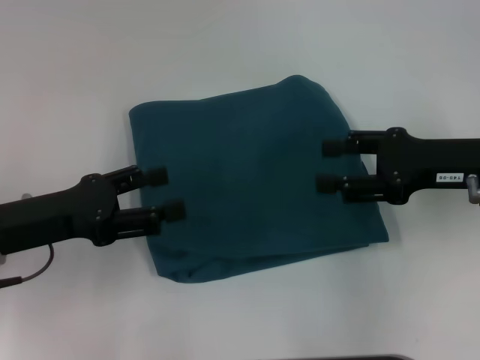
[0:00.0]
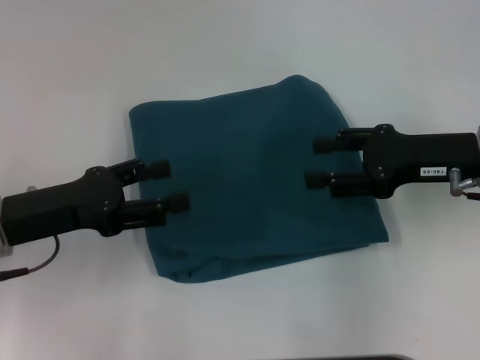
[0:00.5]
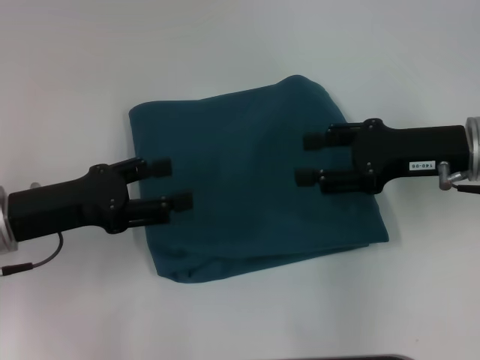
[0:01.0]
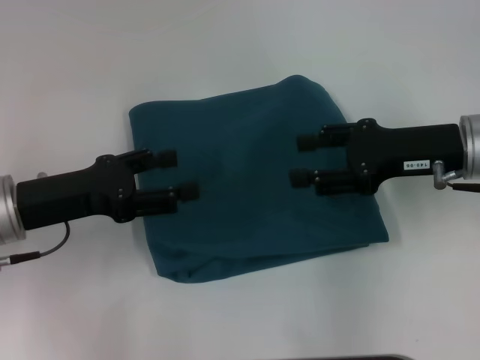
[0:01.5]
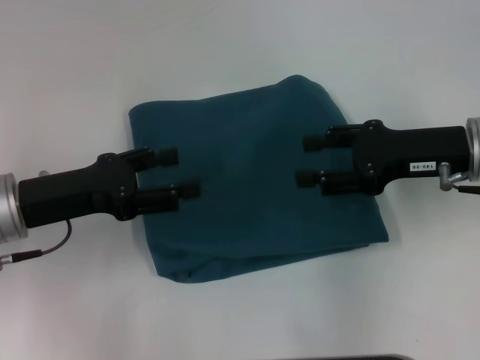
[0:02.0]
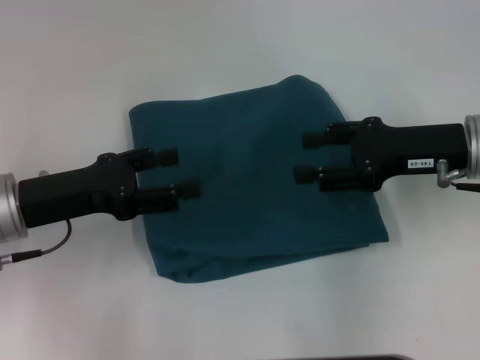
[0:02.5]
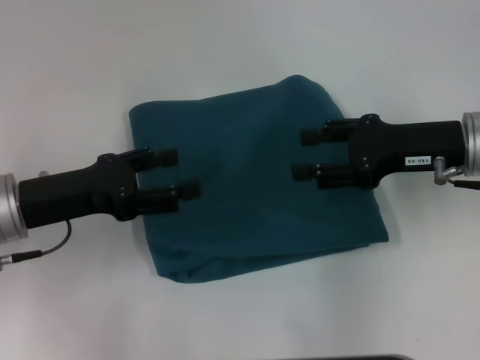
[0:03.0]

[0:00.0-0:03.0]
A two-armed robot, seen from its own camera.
0:00.0 to 0:01.5: There are only small adjustments of the grippers.
0:01.5 to 0:03.0: Both grippers stay put.

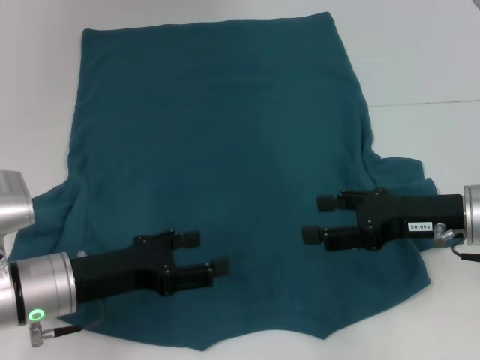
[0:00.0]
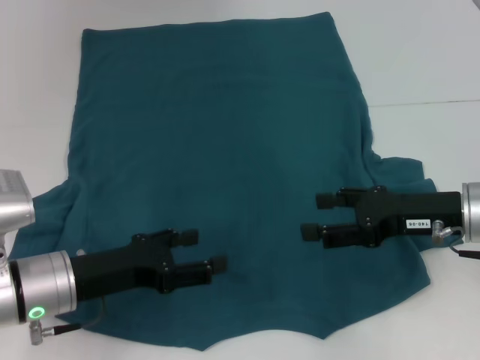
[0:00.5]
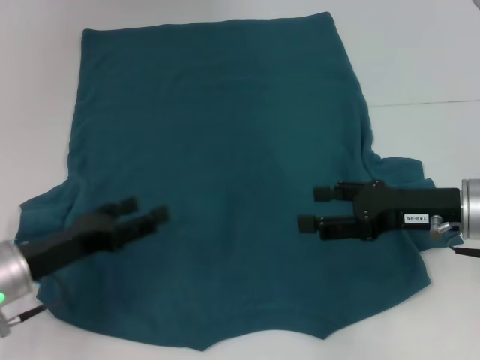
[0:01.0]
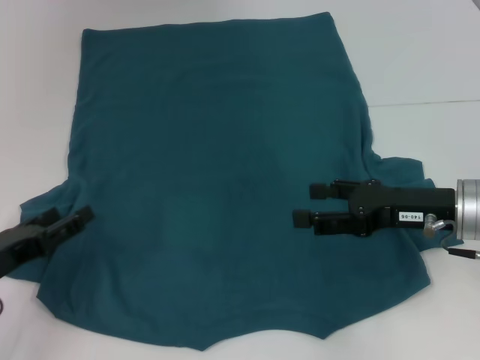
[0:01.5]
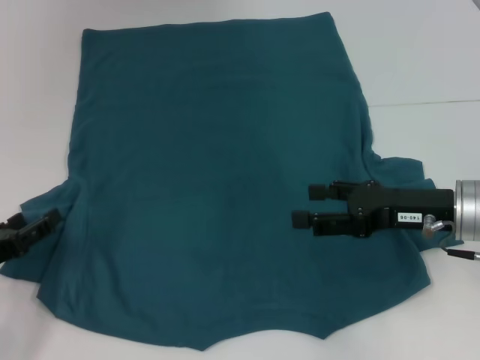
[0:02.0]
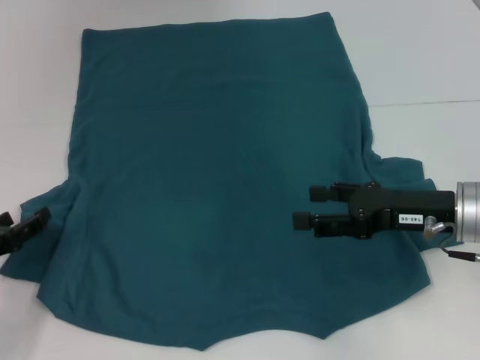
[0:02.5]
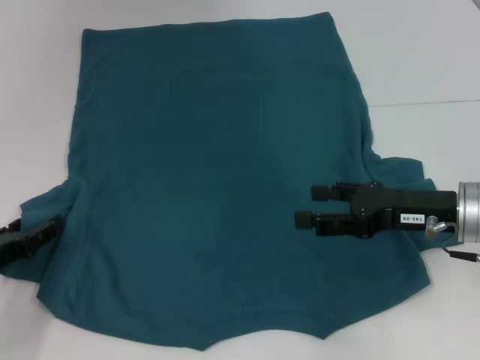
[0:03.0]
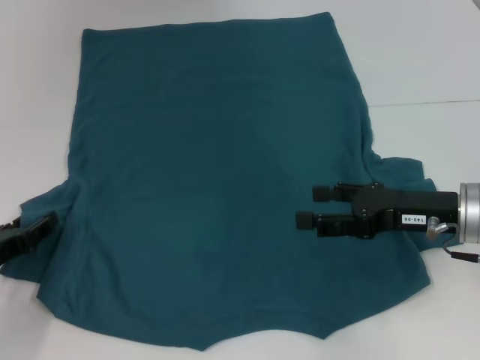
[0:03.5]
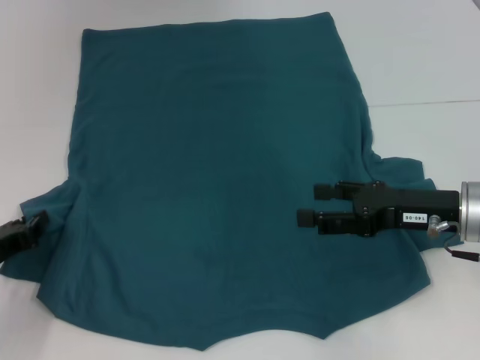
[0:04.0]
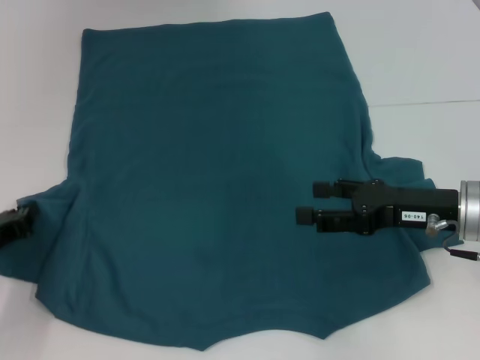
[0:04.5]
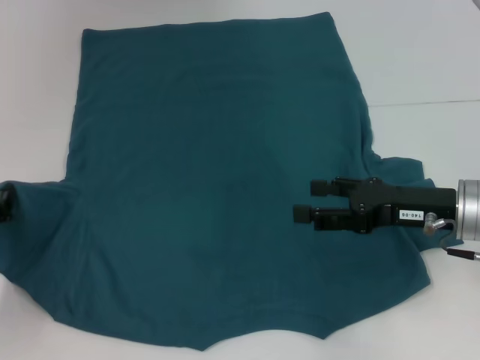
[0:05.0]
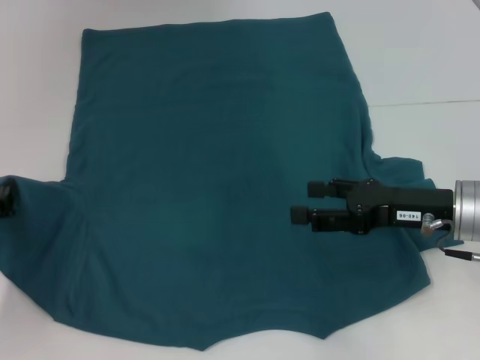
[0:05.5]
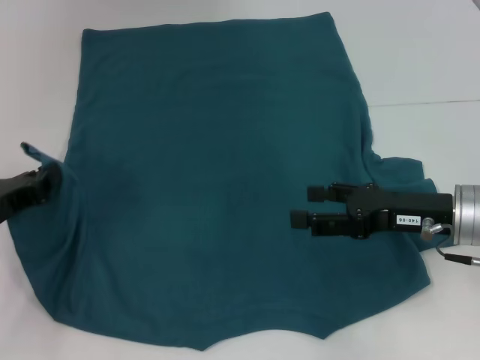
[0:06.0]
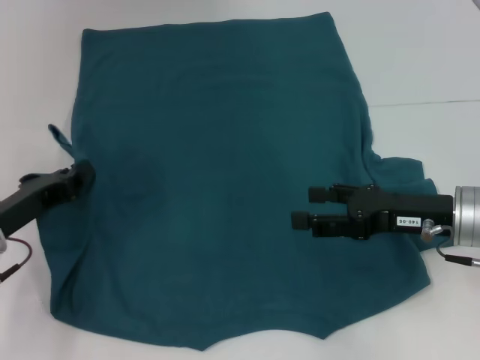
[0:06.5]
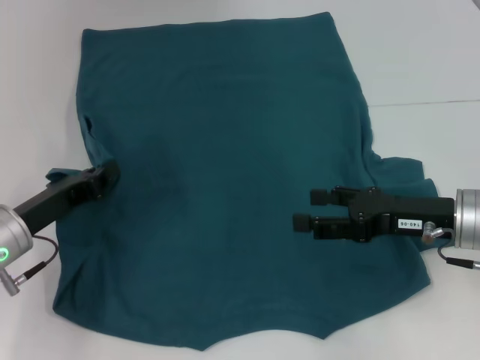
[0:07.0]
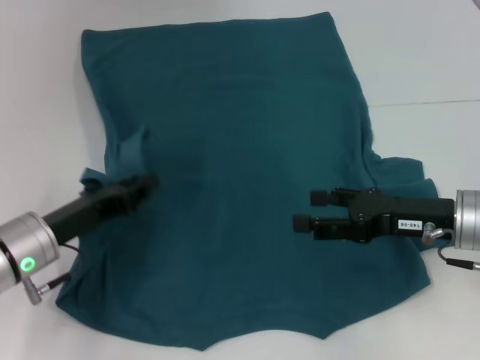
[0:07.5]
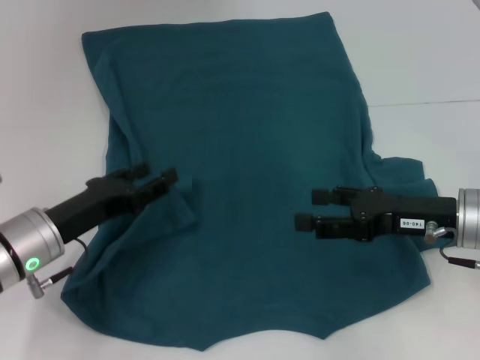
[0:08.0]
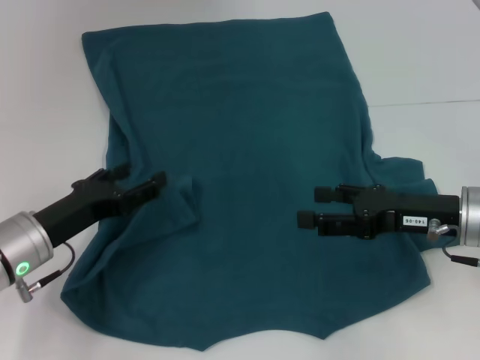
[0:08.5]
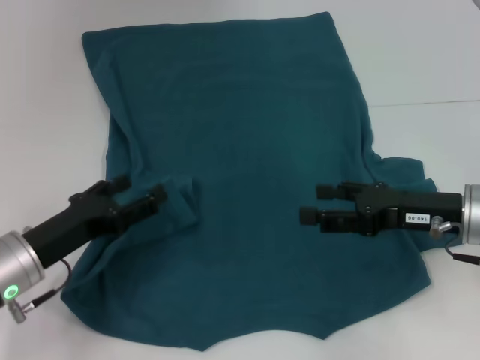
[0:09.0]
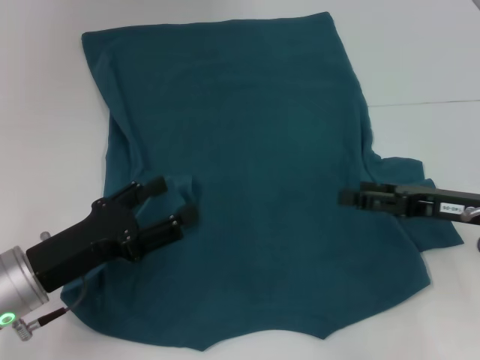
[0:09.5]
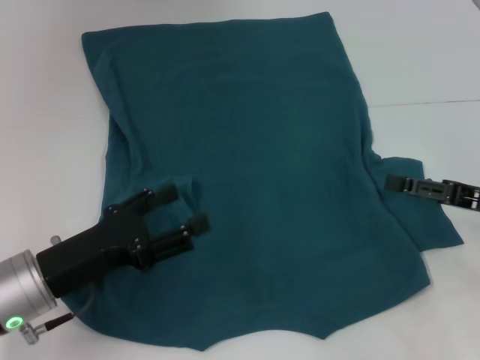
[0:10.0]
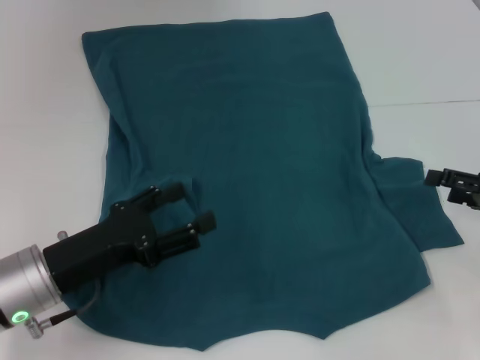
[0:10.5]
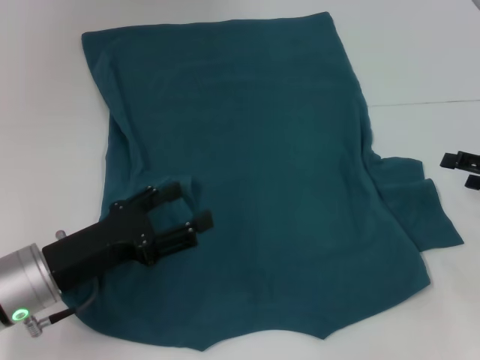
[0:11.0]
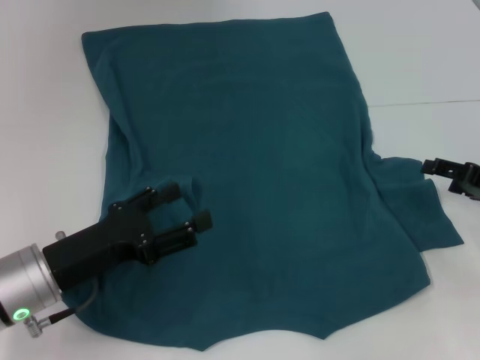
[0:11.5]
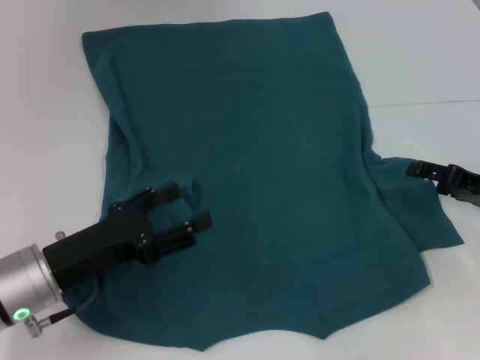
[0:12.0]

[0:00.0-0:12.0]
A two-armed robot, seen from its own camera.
Step, 0:00.0 to 0:08.0: Fold the bottom left sleeve with your left hand.
0:00.0 to 0:02.0: The left gripper moves to the left, some 10 cm.
0:04.0 to 0:06.0: The left gripper closes up.
0:06.0 to 0:08.0: The left gripper travels to the right by approximately 10 cm, and opens up.
0:08.0 to 0:10.0: The left gripper goes roughly 5 cm backward, and opens, while the right gripper shifts some 10 cm to the right.

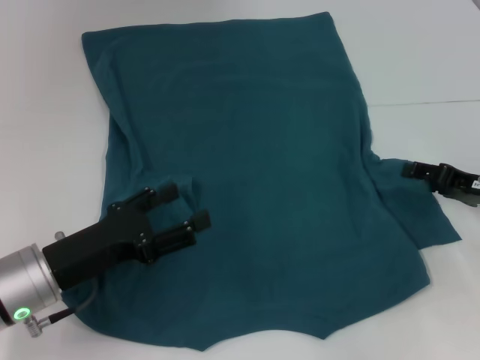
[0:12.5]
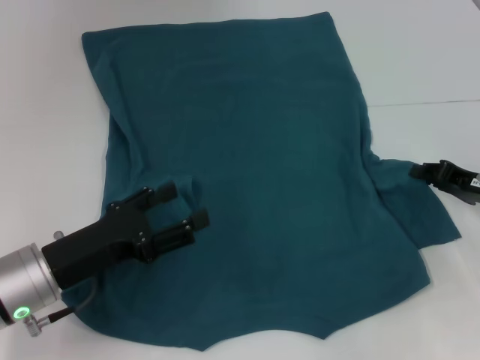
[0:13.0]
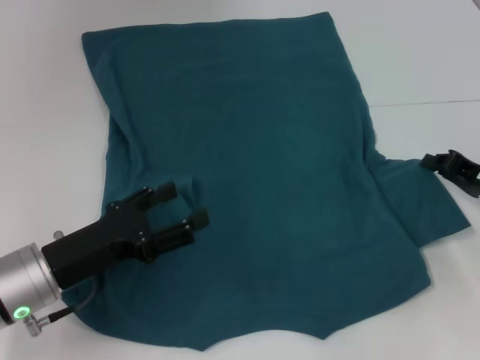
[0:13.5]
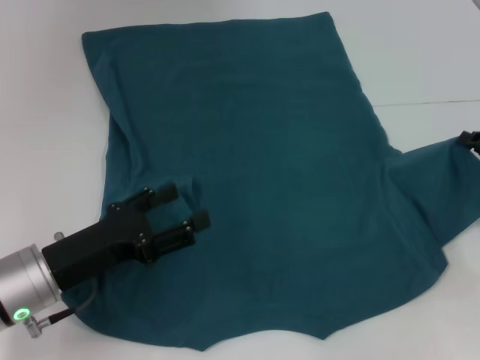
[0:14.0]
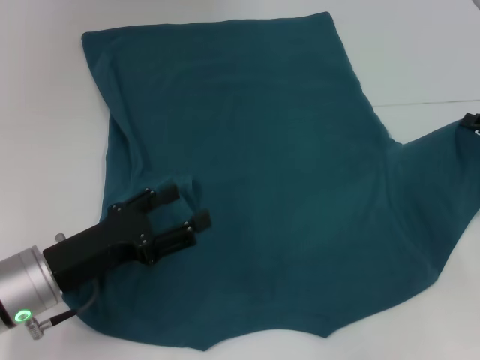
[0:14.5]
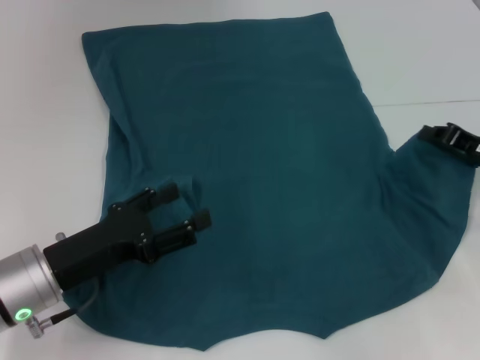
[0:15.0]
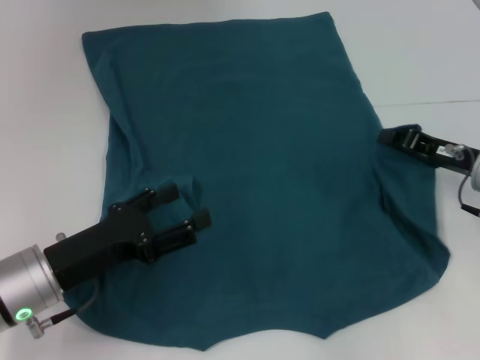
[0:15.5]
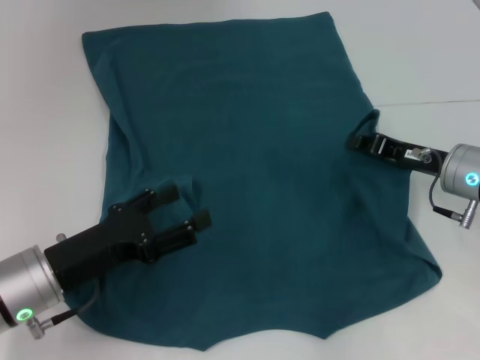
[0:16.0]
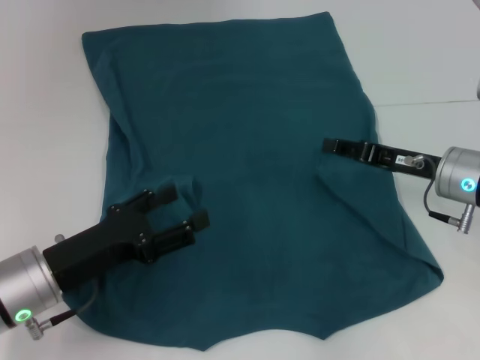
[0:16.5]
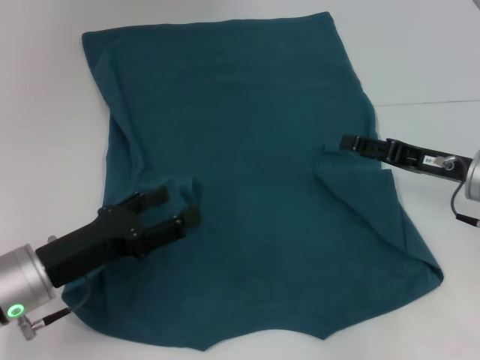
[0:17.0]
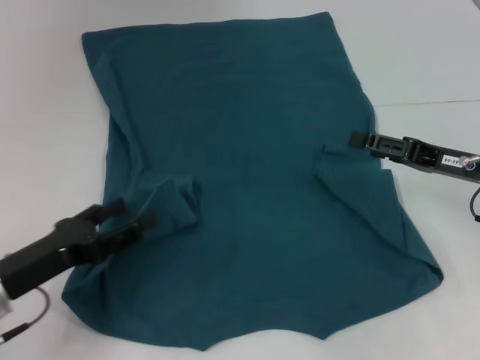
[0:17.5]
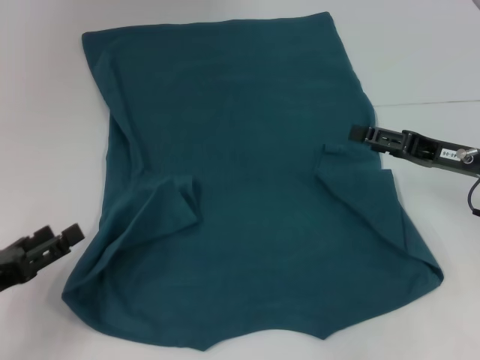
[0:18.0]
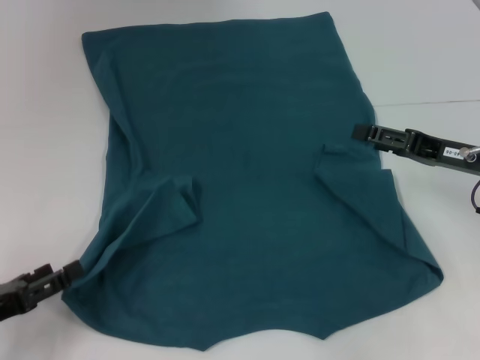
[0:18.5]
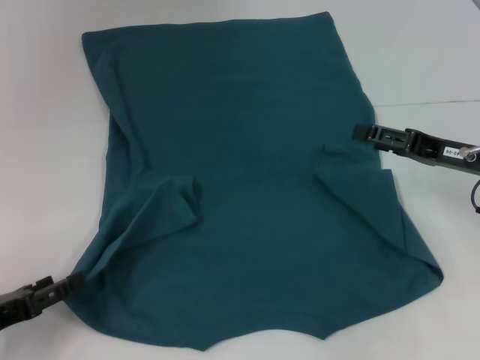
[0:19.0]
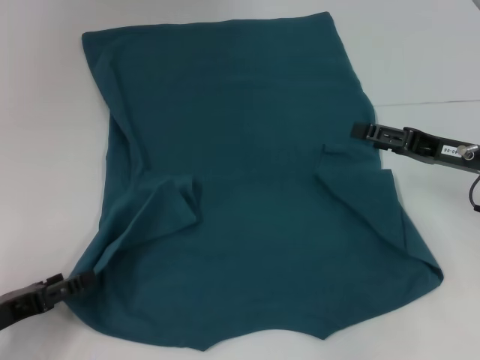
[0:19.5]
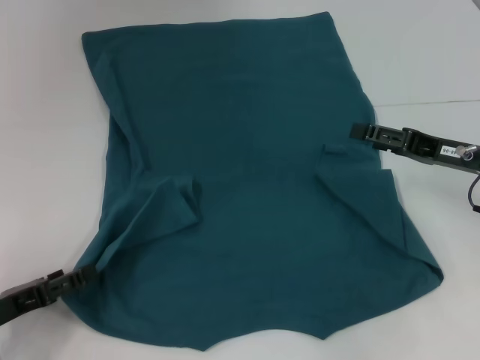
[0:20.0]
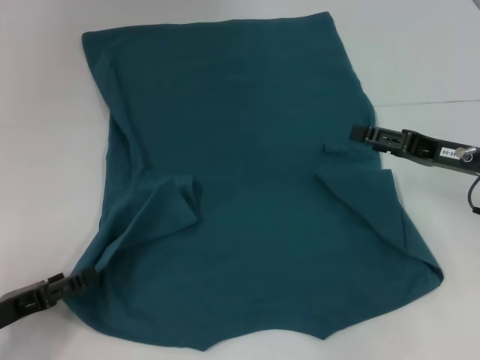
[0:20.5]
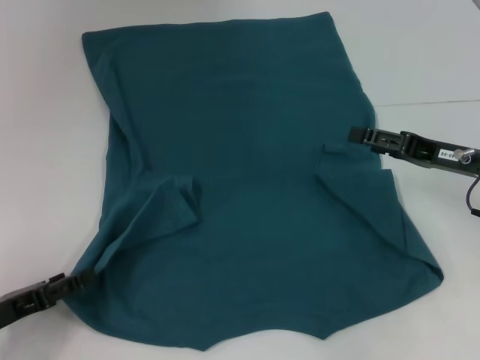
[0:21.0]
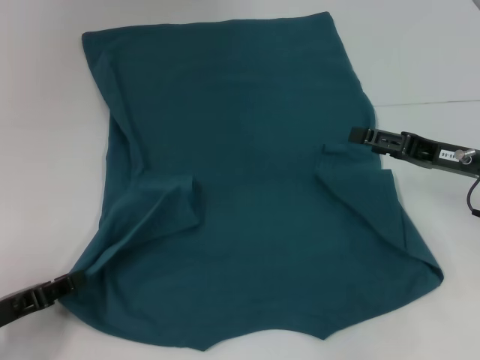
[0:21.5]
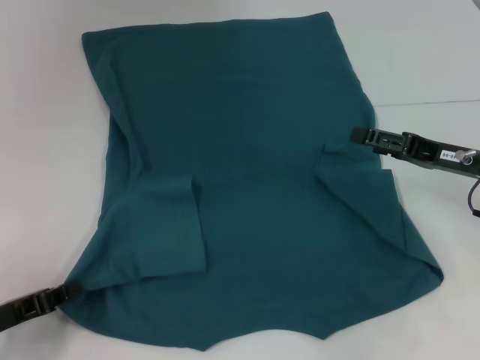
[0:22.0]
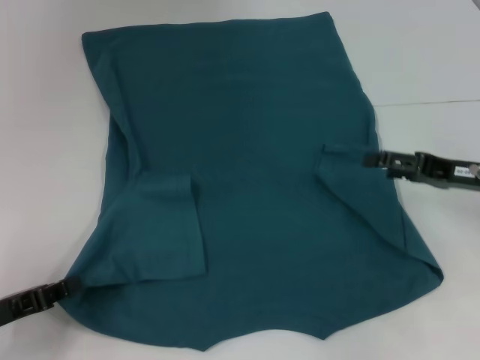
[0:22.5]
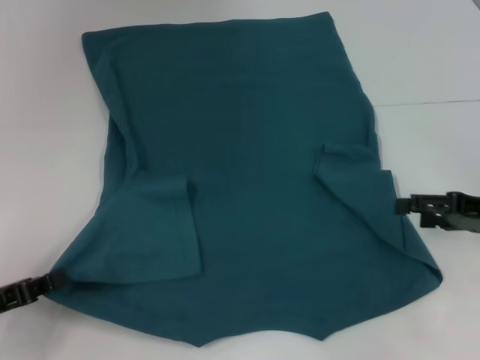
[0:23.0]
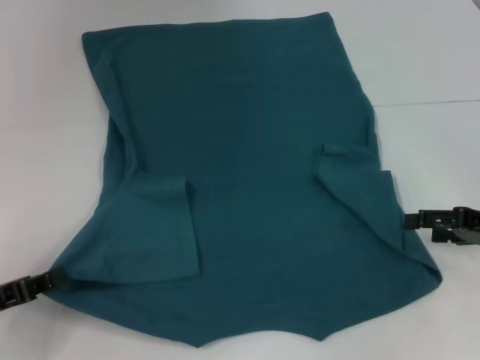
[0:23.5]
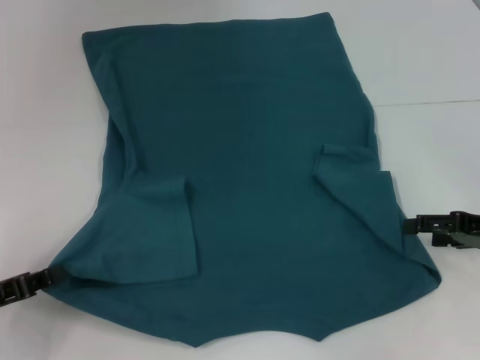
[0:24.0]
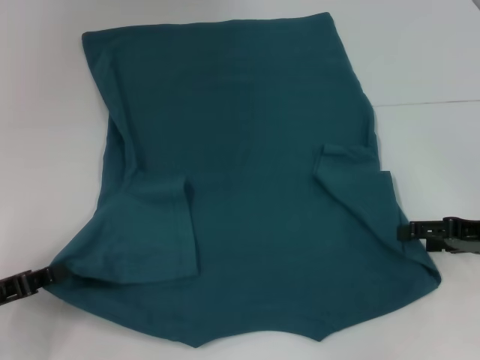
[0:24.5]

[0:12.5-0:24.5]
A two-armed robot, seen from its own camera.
Step, 0:12.5 to 0:16.5: Fold the bottom right sleeve to the right.
Step, 0:17.0 to 0:22.0: Grab the bottom left corner with your left hand.
0:12.5 to 0:14.5: The right gripper closes up.
0:14.5 to 0:16.5: The right gripper moves to the left, some 10 cm, and opens its fingers.
0:16.5 to 0:18.5: The left gripper moves to the left and backward, about 10 cm; the right gripper opens its fingers.
0:18.5 to 0:20.5: The grippers stay close to where they were, moving slightly.
0:20.5 to 0:22.5: The left gripper closes.
0:22.5 to 0:24.5: The grippers stay close to where they were, moving slightly.
